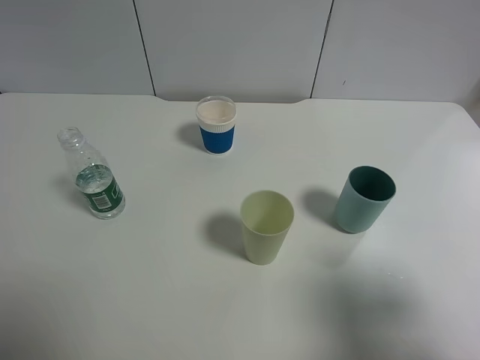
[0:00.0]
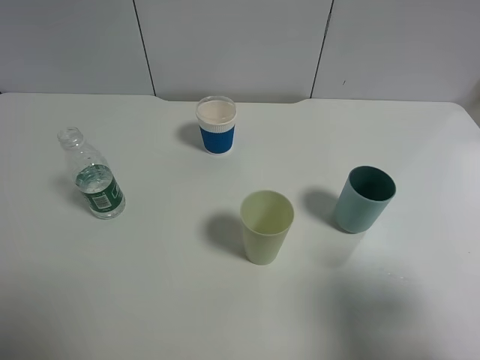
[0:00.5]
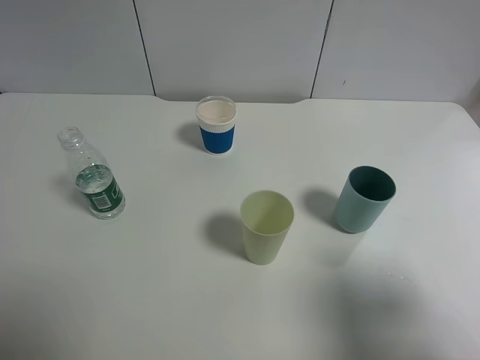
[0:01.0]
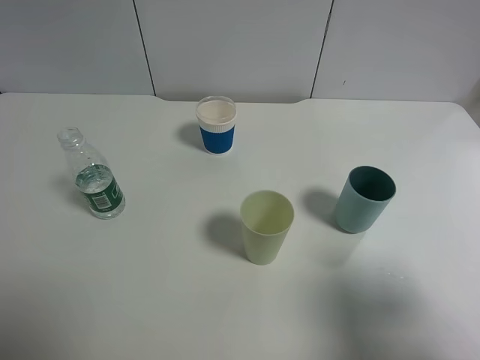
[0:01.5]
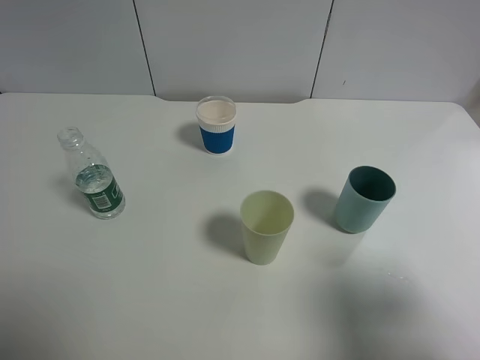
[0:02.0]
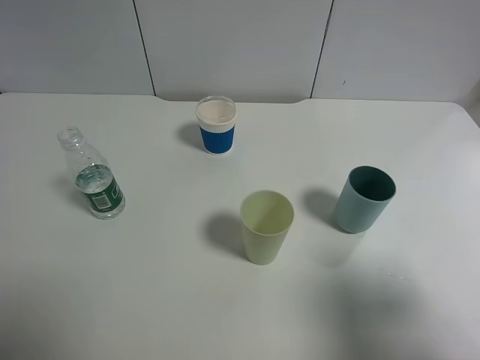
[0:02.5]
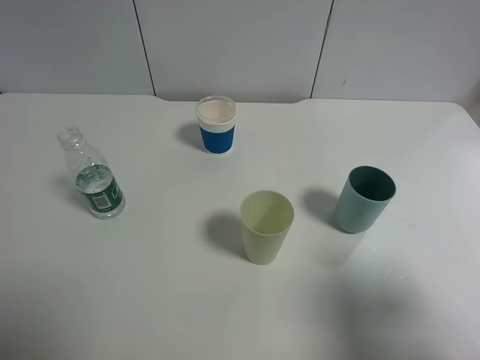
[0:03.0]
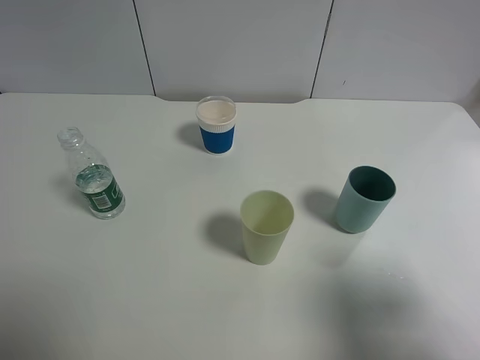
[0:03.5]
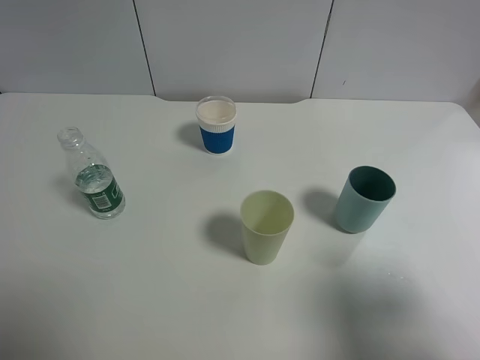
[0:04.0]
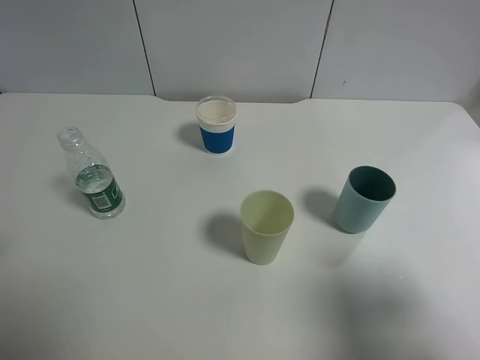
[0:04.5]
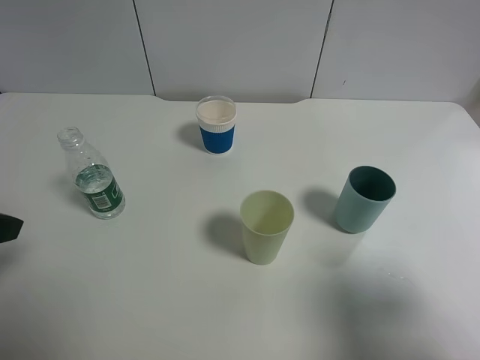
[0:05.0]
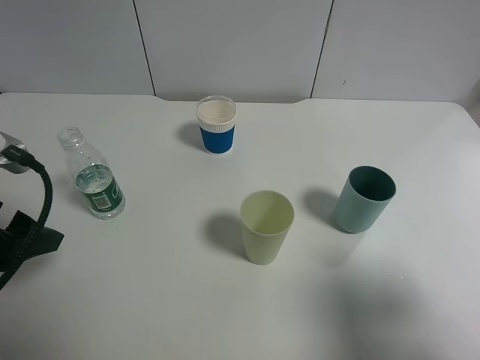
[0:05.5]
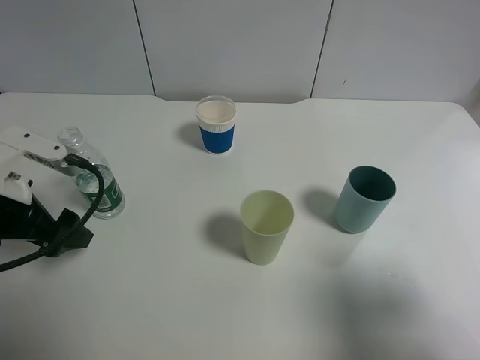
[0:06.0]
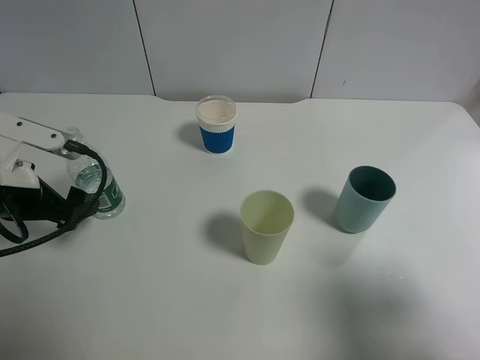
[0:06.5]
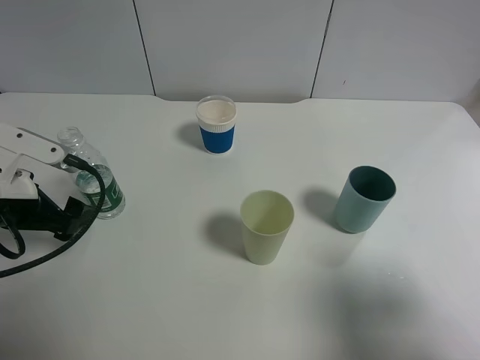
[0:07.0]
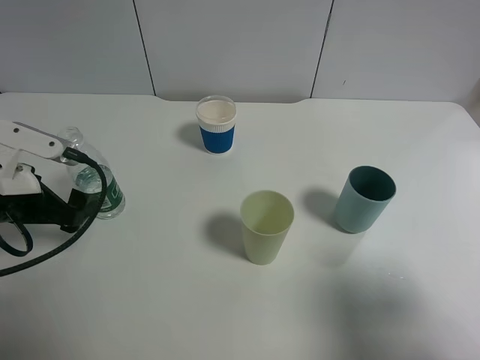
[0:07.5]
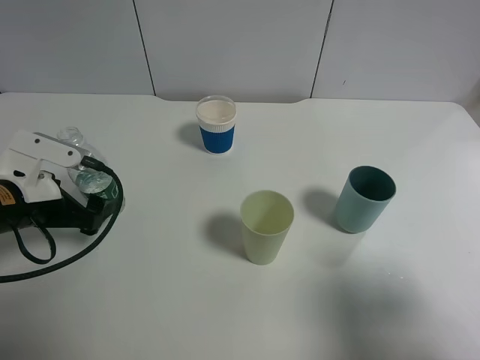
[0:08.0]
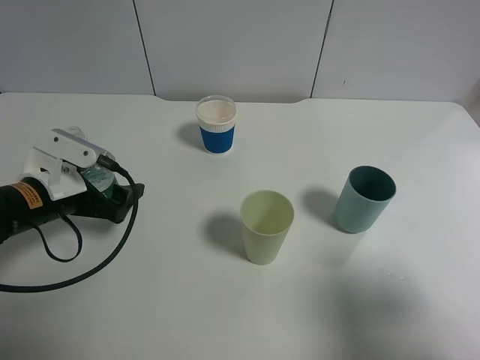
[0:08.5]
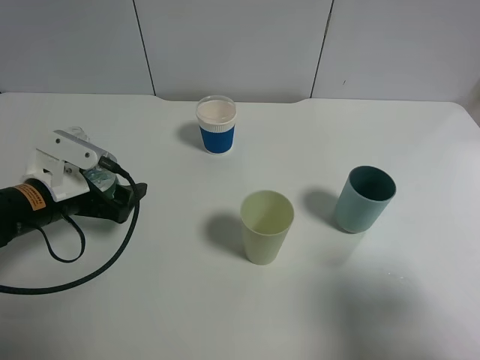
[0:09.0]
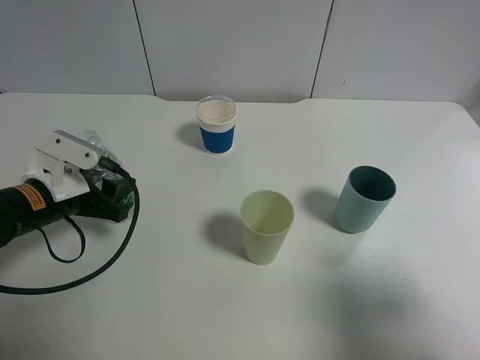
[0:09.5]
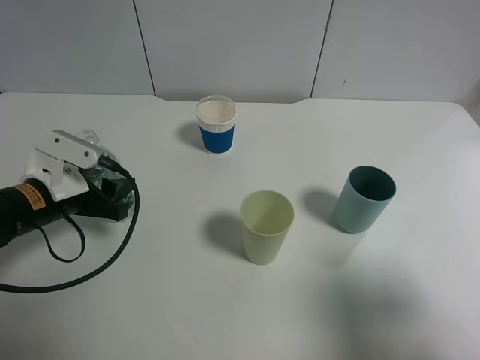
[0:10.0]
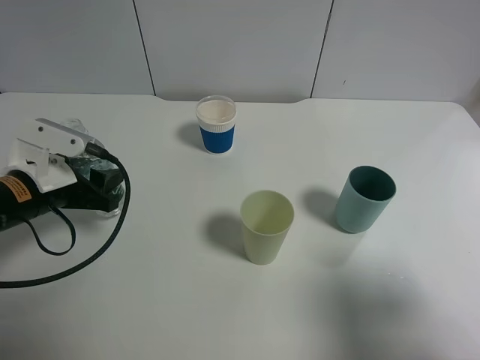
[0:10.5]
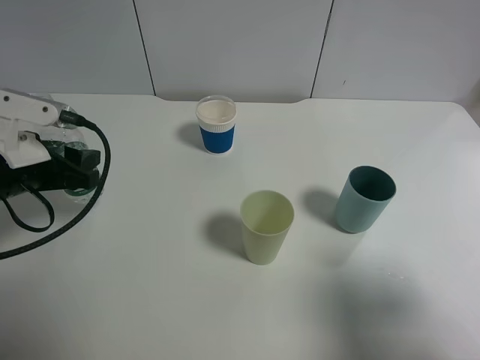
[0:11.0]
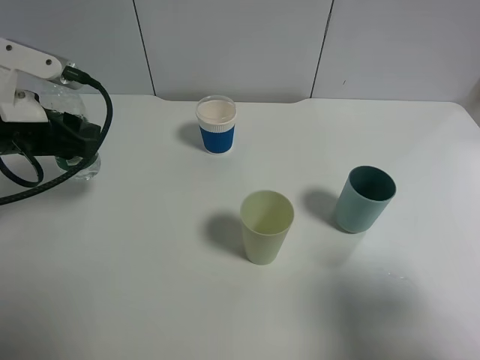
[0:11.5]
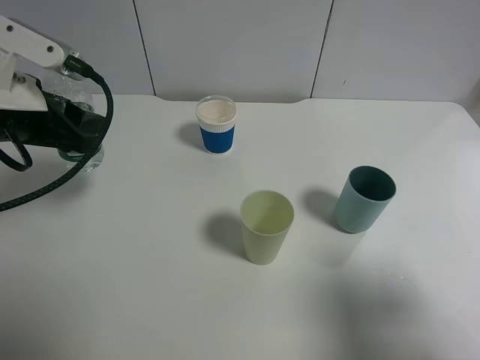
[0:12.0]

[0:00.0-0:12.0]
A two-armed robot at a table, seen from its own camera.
Task of the whole recording: use a gripper to hold the bottle of the drink and pour it into a random cup.
Step, 0:00.0 to 0:09.0: Grasp the mineral water bottle with the left gripper.
0:00.0 to 0:02.0: Neither gripper changes place.
0:04.0 to 0:06.0: The left gripper shifts some 20 cm forward and downward.
0:08.0 to 0:10.0: The left gripper closes its fingers.
0:10.0 to 0:12.0: The left gripper moves upward, approximately 15 cm.

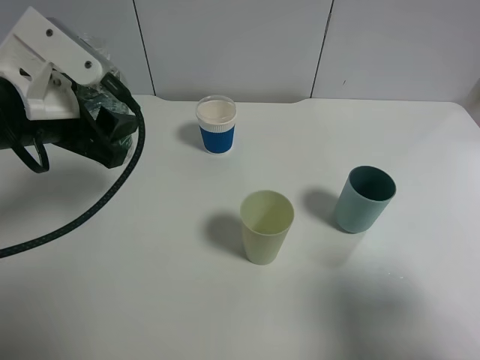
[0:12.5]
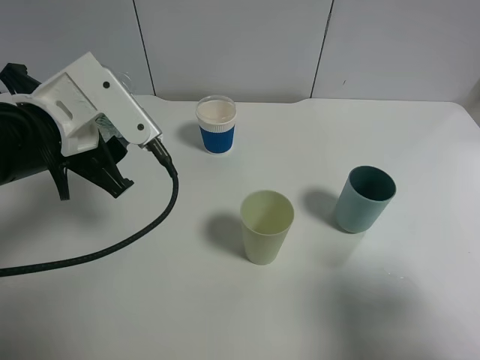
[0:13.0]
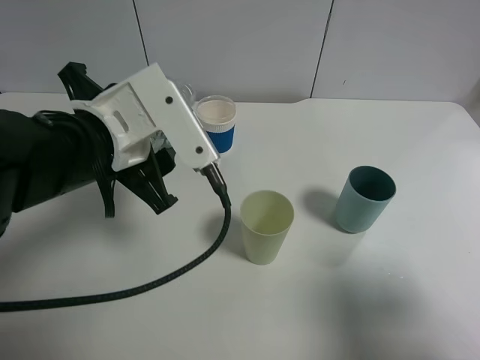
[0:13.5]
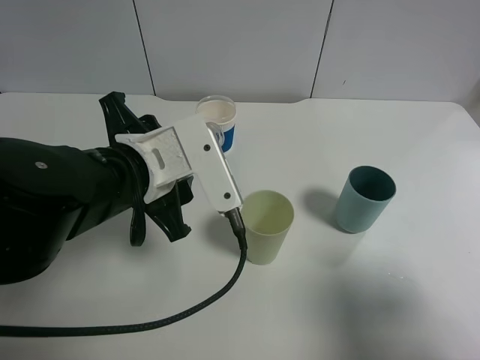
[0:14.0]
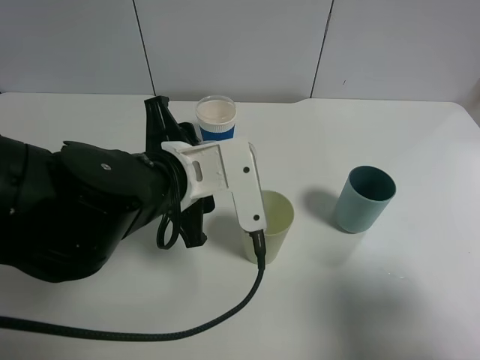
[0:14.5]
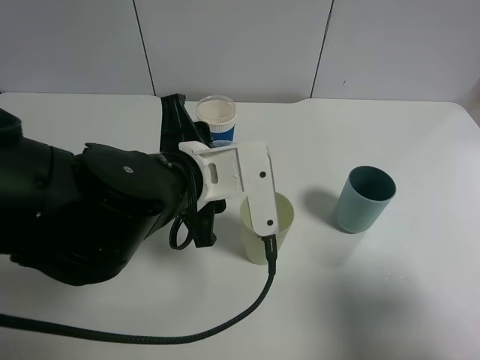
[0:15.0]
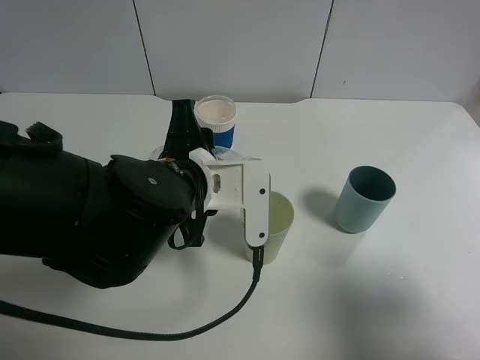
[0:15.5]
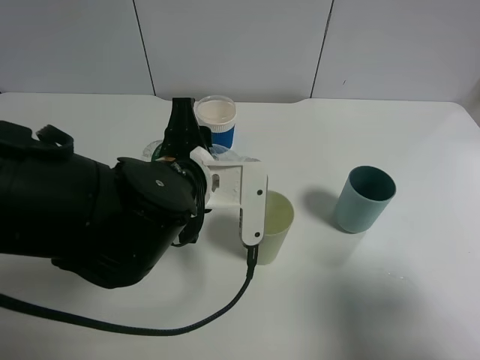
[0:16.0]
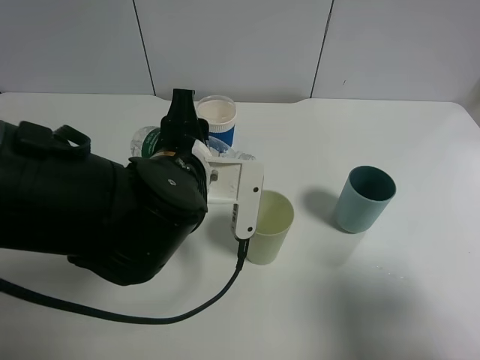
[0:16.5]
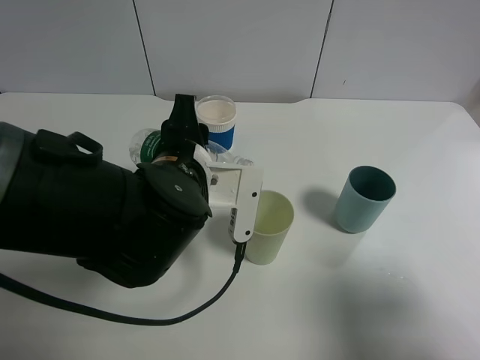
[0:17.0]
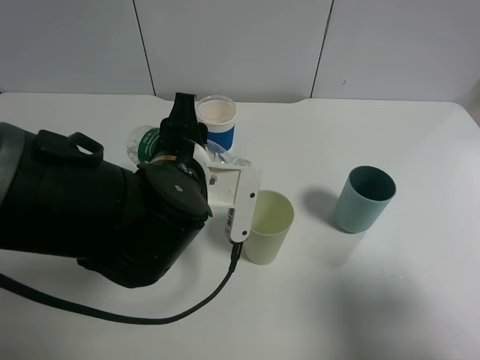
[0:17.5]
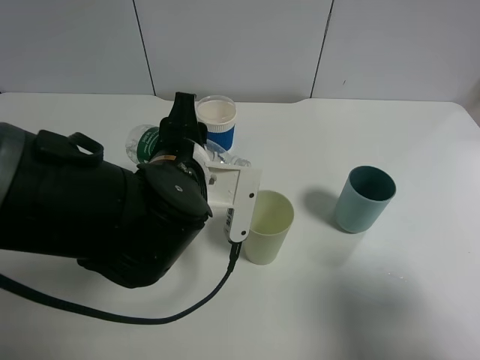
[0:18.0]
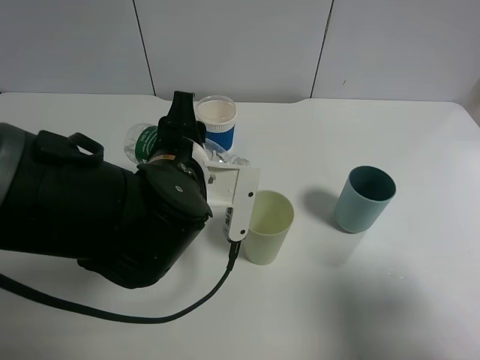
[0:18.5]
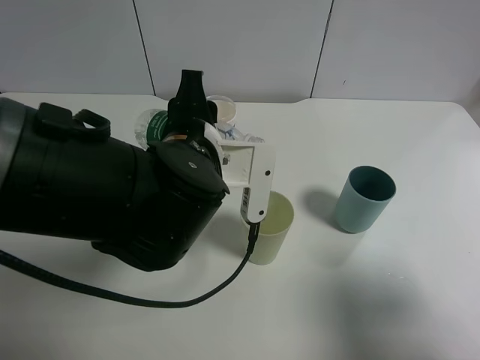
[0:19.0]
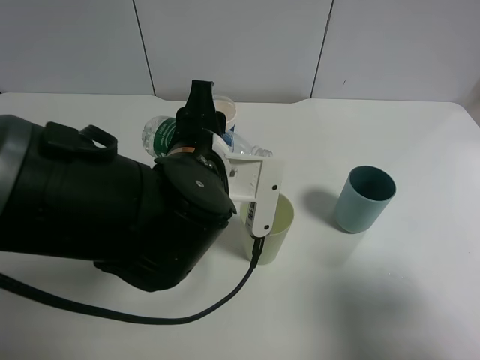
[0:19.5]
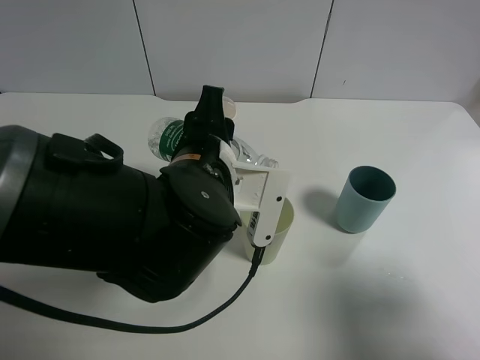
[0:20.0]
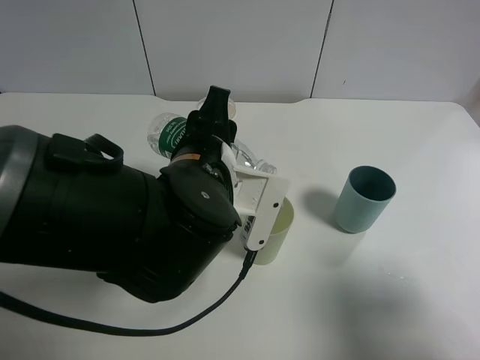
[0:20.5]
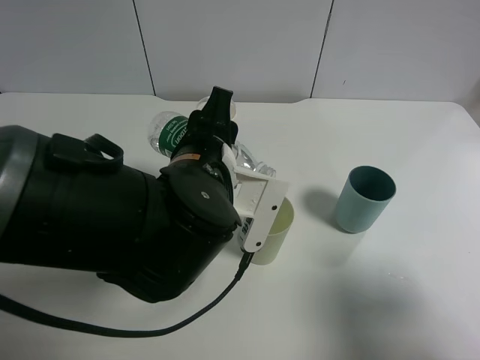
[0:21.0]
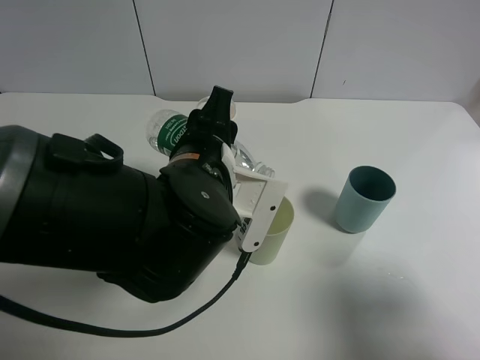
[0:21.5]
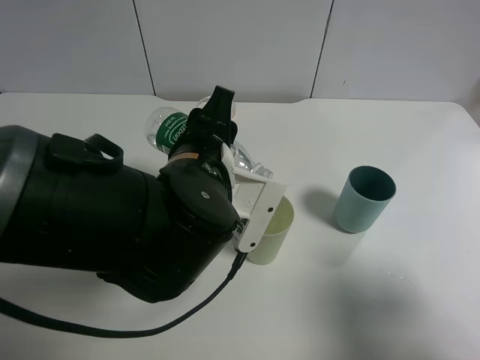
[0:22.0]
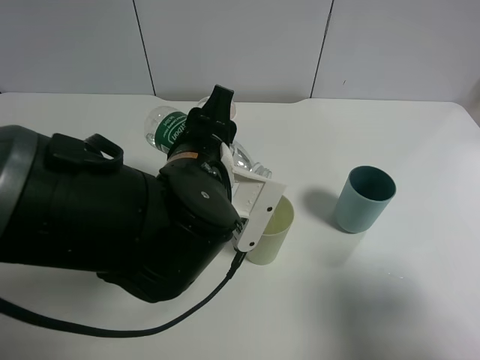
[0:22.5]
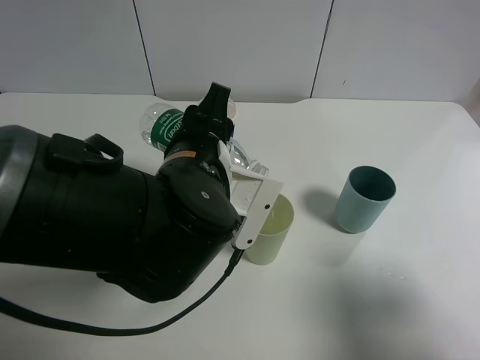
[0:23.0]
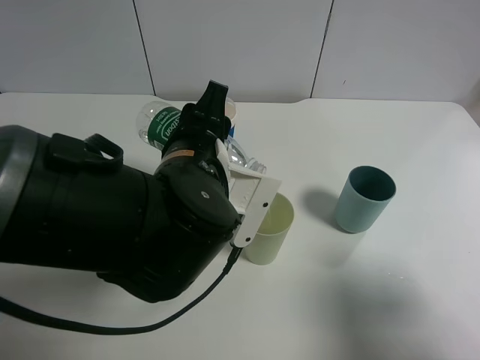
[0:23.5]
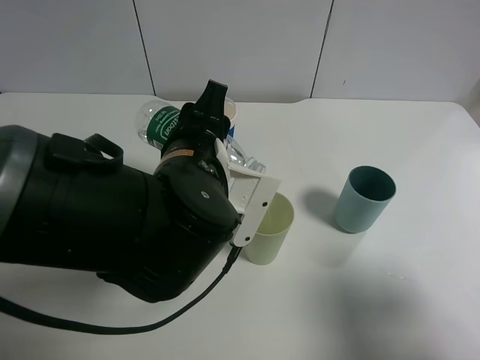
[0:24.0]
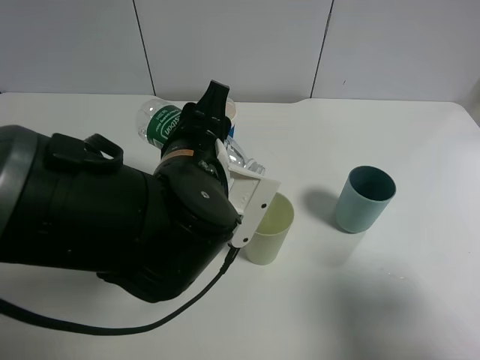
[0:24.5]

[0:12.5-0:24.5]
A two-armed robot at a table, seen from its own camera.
Task of the whole recording: use a gripper to hold the bottle of the drink and pour it into a random cup.
0:12.5 to 0:14.5: The left gripper shifts some 15 cm to the right.
0:16.5 to 0:18.5: Both grippers stay put.
0:18.5 to 0:20.5: The grippers stay close to where they were, moving slightly.
0:20.5 to 0:22.5: Neither gripper changes place.
0:22.5 to 0:24.5: Neither gripper changes place.

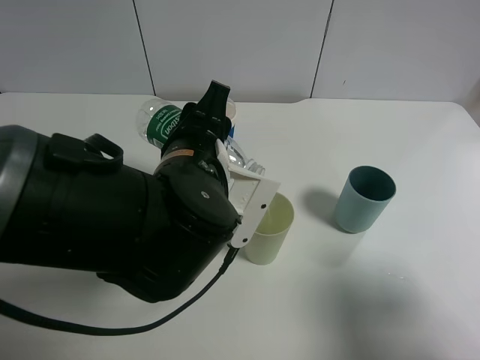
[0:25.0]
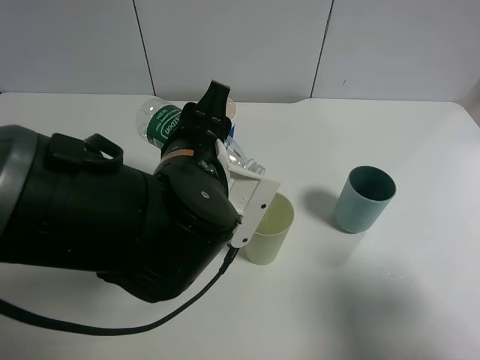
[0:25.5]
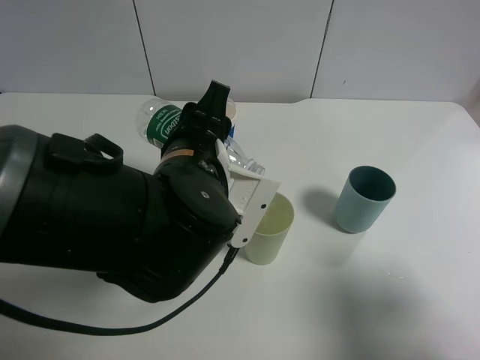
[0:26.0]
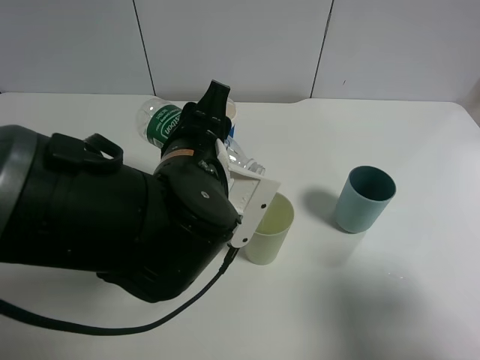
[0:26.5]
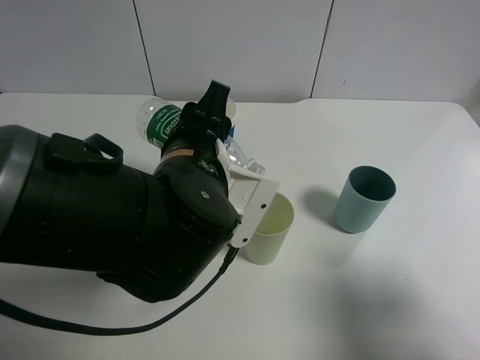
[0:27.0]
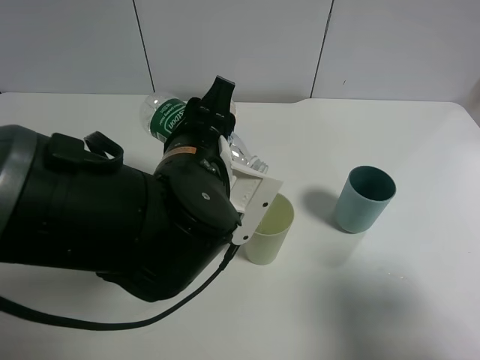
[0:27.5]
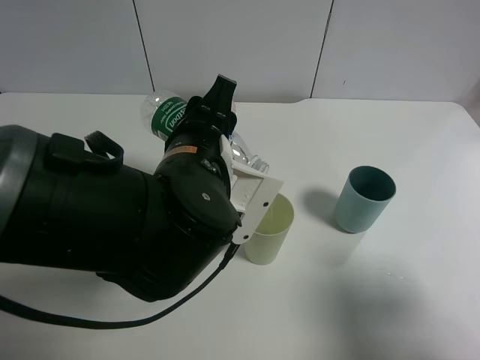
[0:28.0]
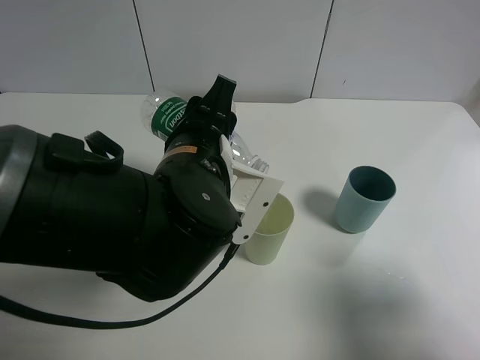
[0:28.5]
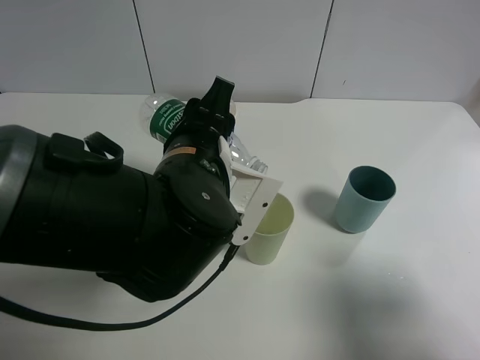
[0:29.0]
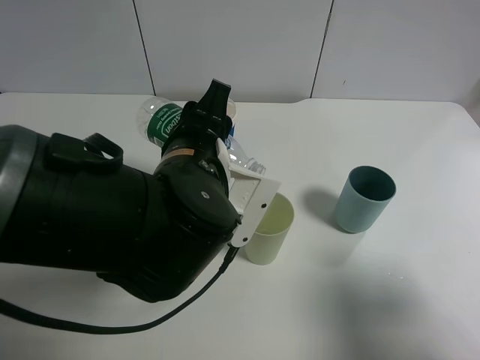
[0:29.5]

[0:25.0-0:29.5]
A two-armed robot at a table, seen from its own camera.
Task of the whole recording: use a gripper to hold the bottle of the drink and pour it into a random cup.
0:25.0 to 0:29.5: The two grippers keep their place.
